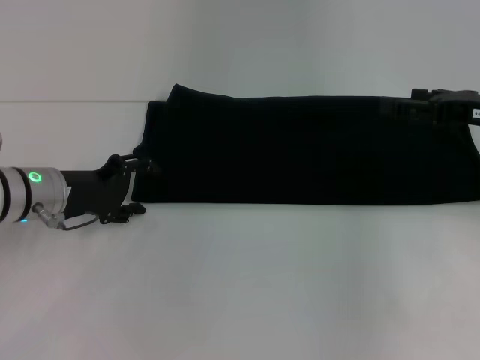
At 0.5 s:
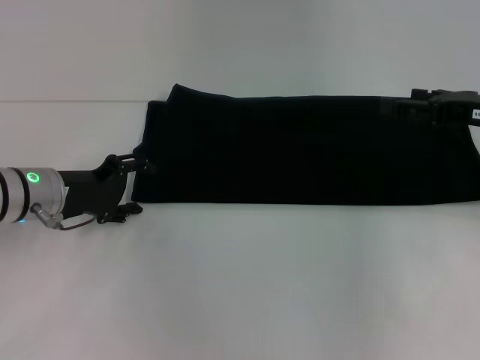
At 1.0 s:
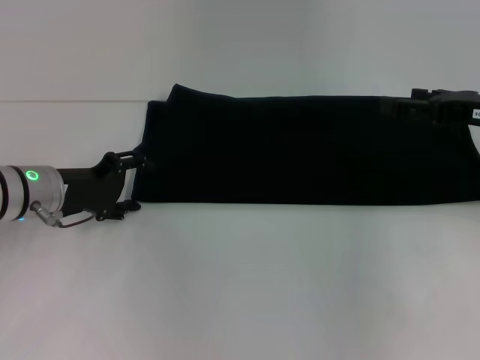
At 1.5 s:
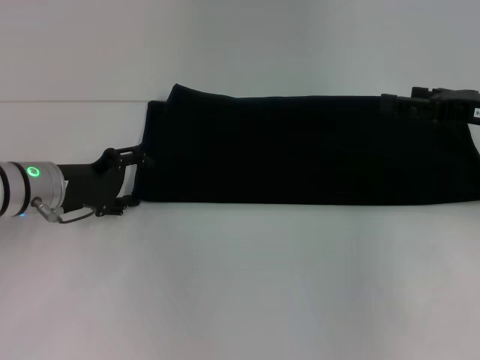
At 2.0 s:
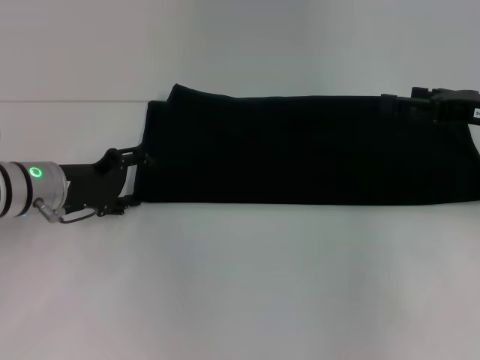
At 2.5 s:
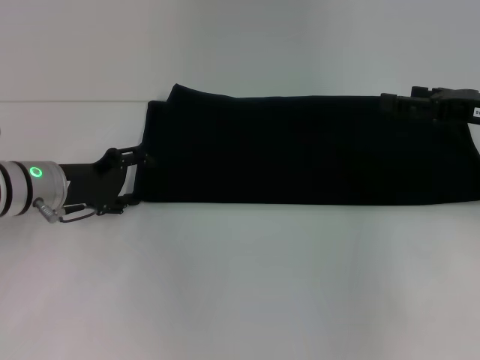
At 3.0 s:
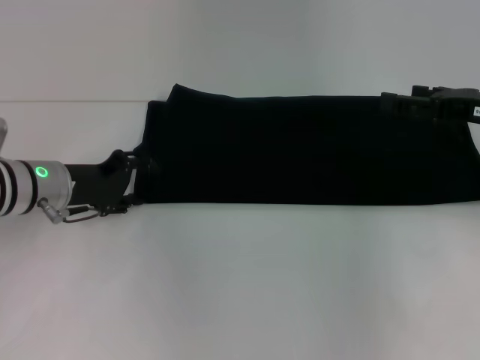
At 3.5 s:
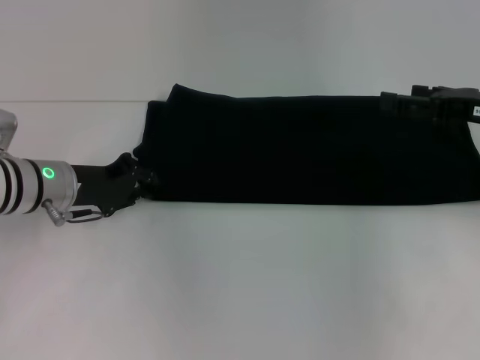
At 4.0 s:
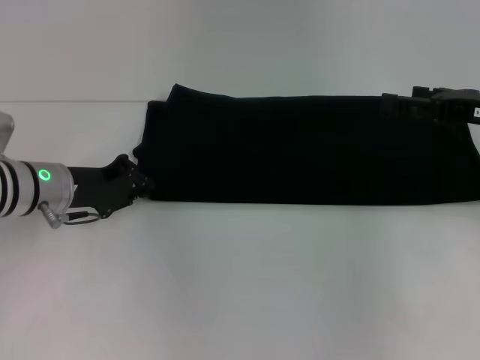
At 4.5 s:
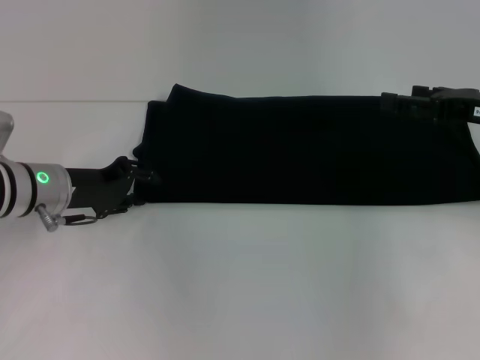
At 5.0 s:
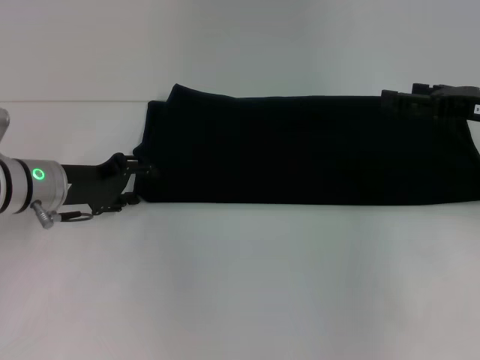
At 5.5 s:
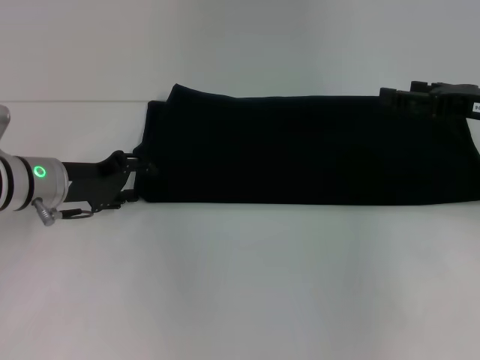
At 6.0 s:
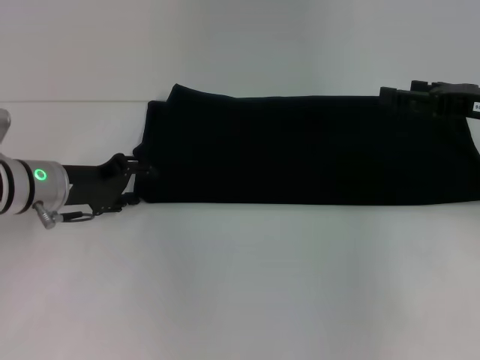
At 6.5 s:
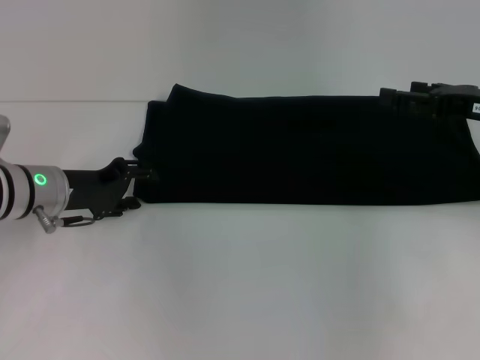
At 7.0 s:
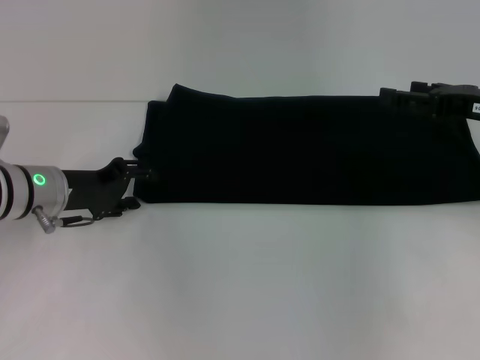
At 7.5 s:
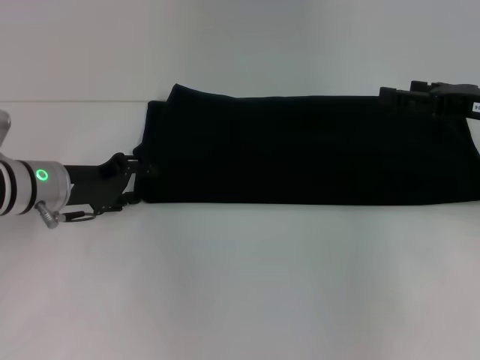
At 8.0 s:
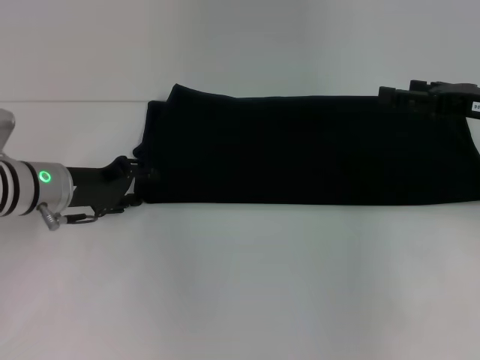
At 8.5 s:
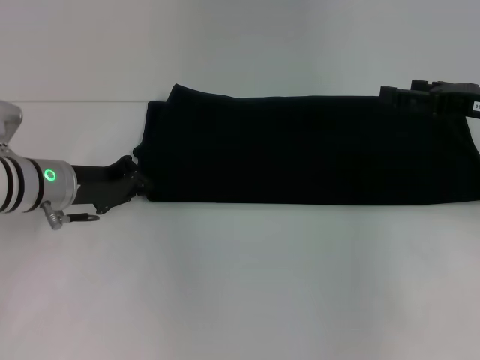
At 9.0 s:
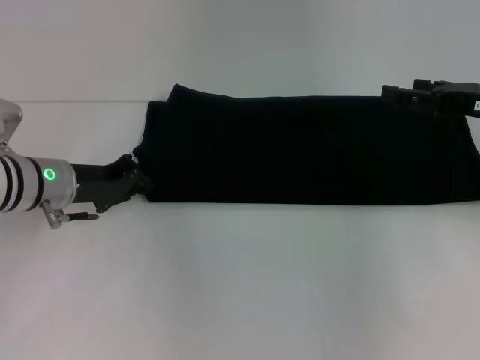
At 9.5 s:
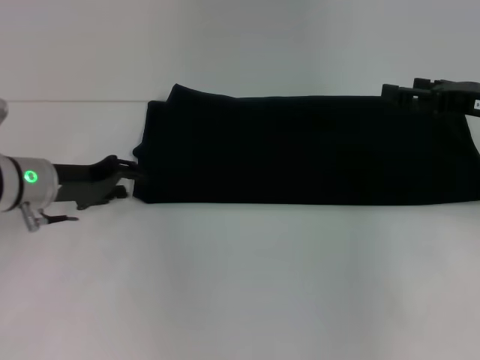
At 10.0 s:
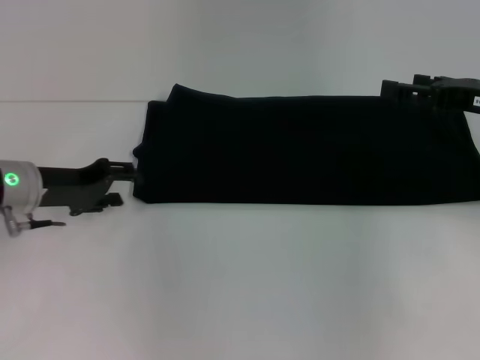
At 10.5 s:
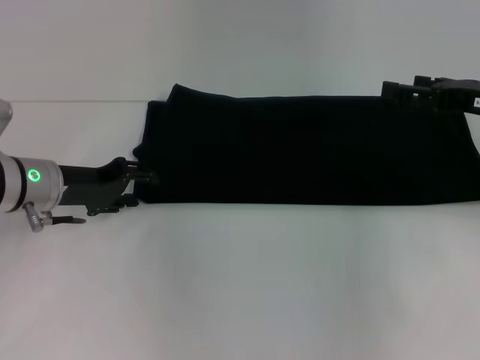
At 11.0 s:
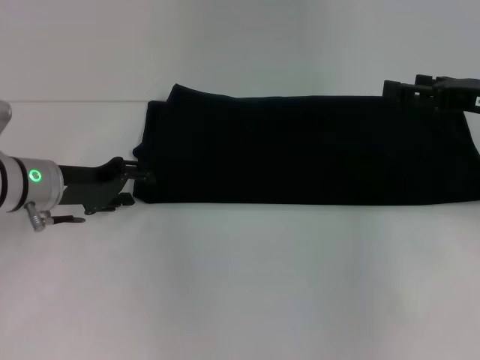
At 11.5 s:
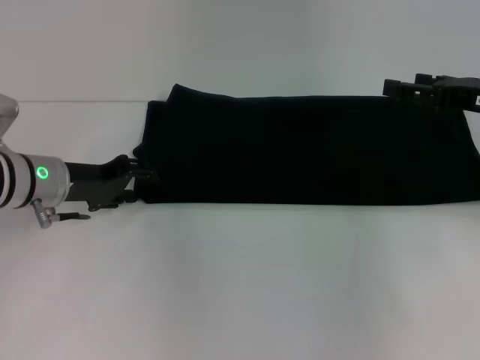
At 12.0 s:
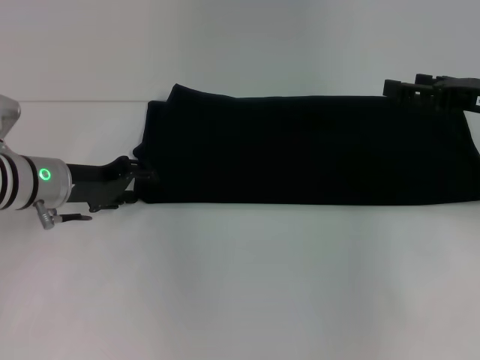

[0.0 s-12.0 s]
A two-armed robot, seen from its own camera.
0.0 to 2.0 s: Both grippers stay put.
2.0 to 4.0 s: The left gripper closes its fingers.
4.0 to 6.0 s: The left gripper opens up.
6.0 to 8.0 s: Both grippers stay about where they are.
8.0 to 10.0 s: The left gripper closes and opens again.
10.0 to 12.0 s: The grippers stay close to where they were, moving slightly.

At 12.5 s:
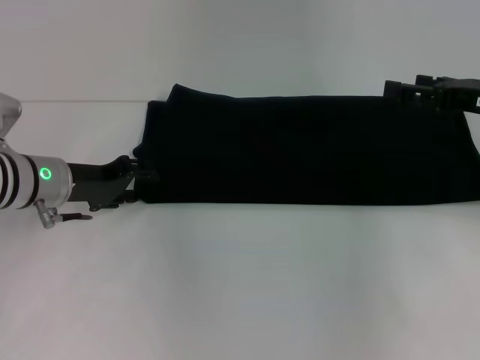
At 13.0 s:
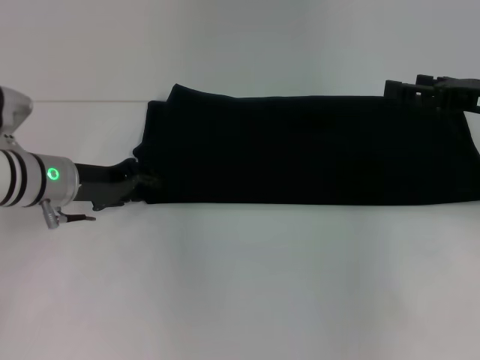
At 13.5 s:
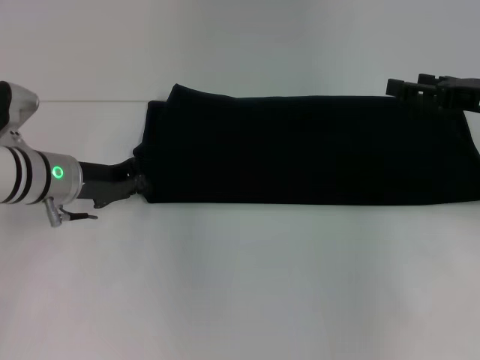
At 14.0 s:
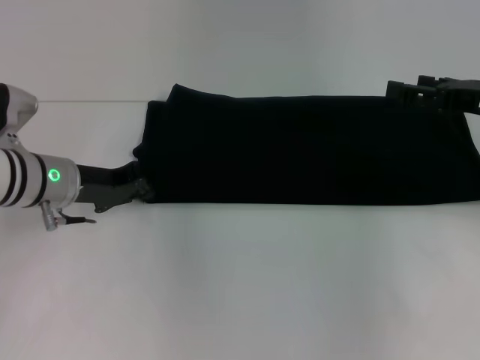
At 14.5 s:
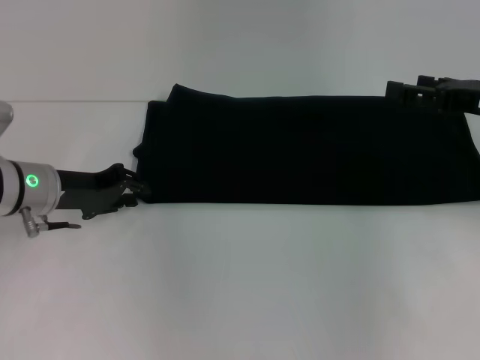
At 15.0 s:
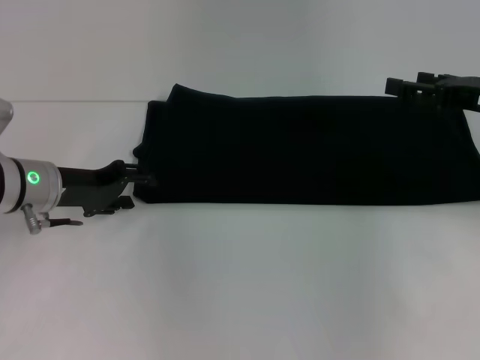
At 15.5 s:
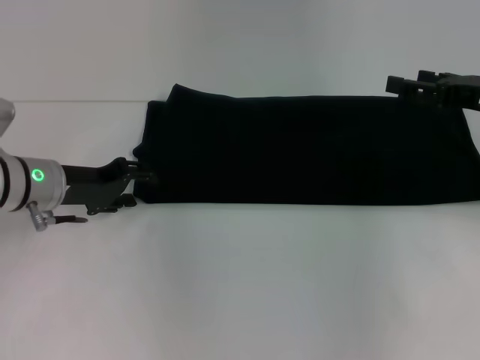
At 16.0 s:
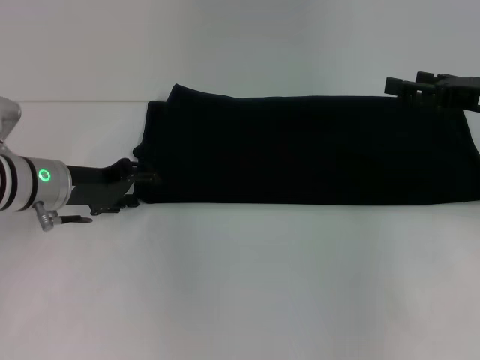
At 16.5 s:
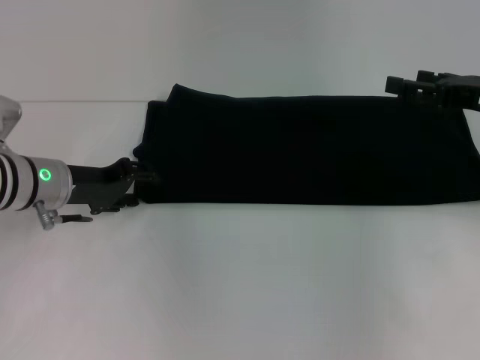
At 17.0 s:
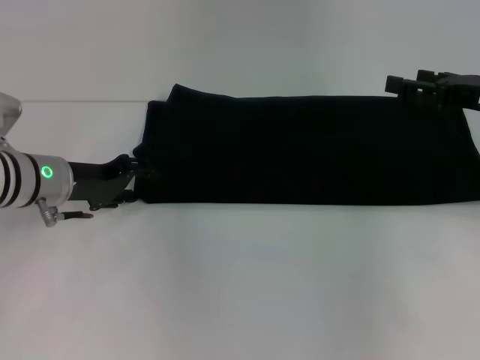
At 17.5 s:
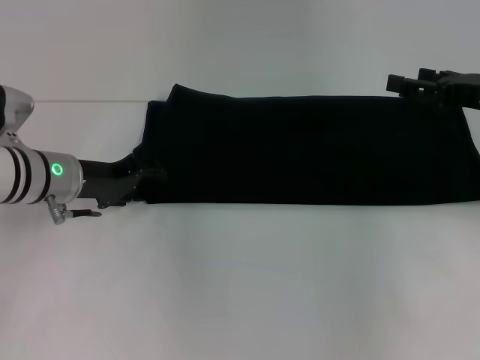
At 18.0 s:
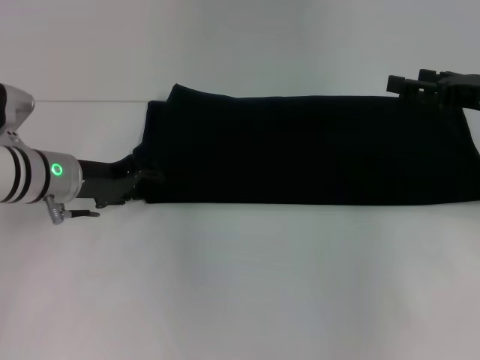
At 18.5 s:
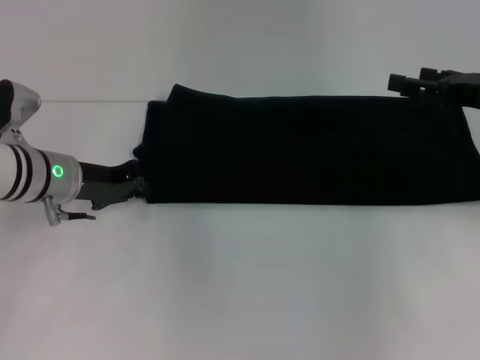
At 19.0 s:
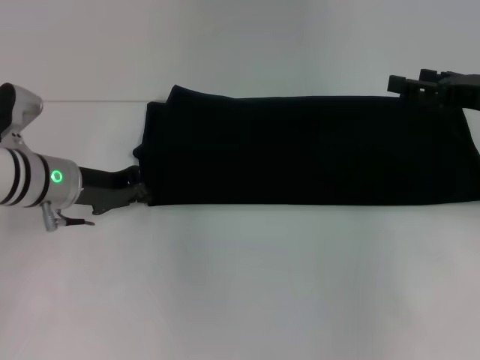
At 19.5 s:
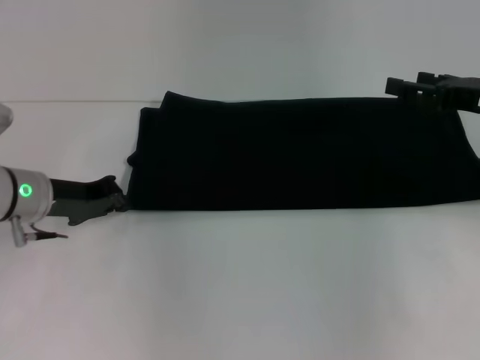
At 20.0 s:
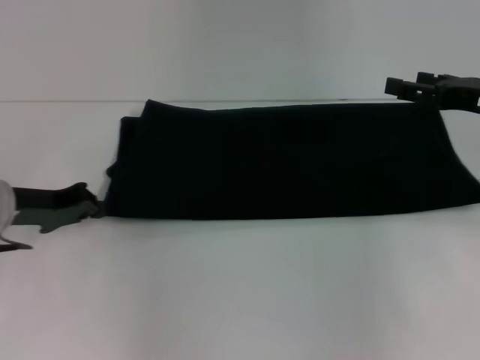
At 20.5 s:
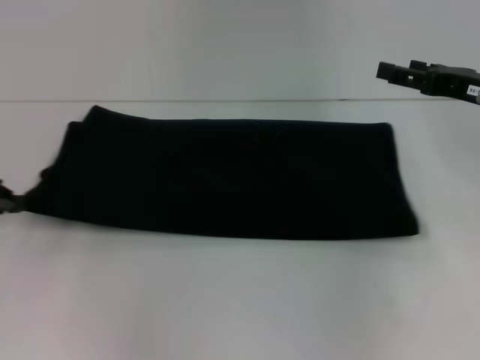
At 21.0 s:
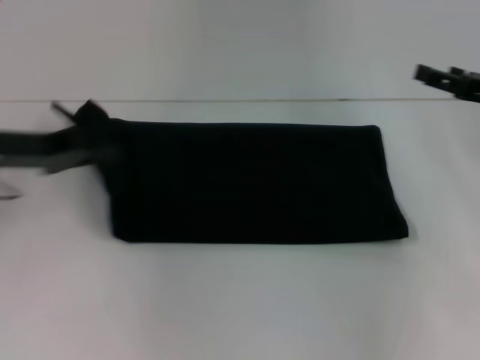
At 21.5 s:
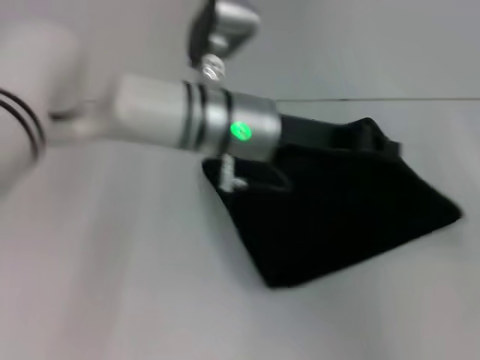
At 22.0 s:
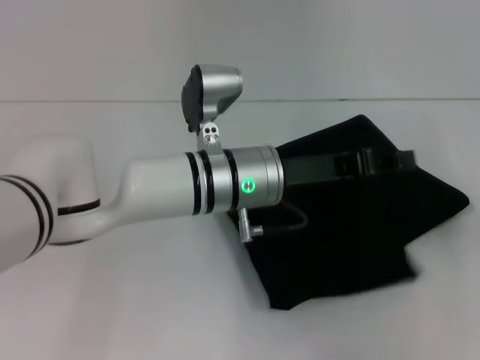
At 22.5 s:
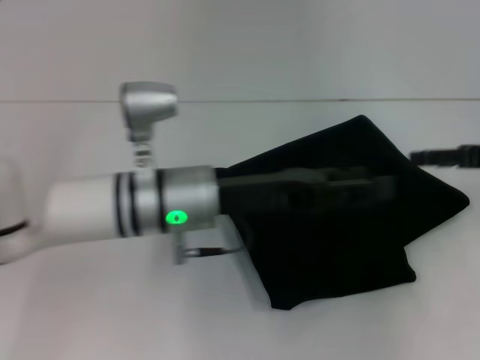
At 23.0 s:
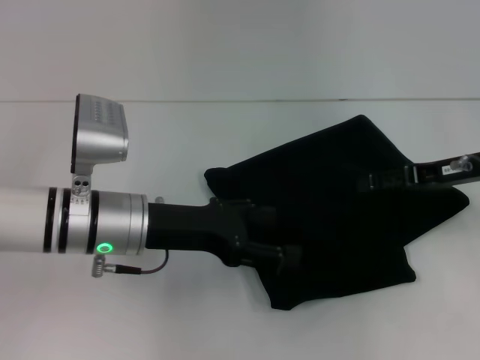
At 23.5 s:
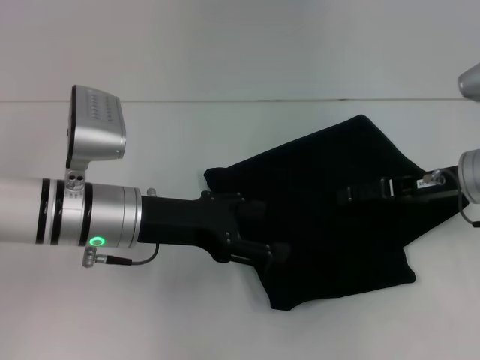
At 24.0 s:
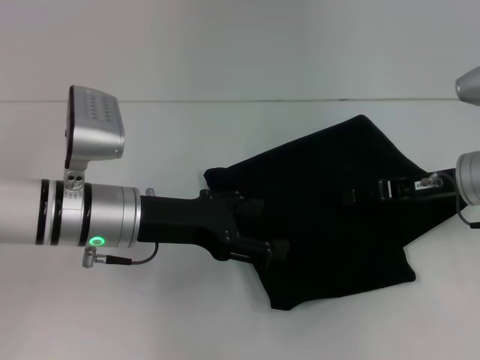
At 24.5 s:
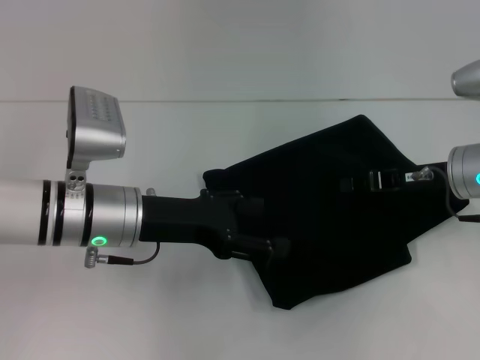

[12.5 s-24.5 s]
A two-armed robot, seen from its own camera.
Step, 12.5 to 22.0 s: Fold the clothes with your left hand.
12.5 to 14.5 s: The left gripper closes up.
14.5 to 16.5 s: The left gripper opens up.
16.5 to 18.5 s: The left gripper closes its fingers.
18.5 to 20.5 s: The left gripper is displaced to the left and backward by about 15 cm.
20.5 to 22.5 s: The left gripper travels to the right by roughly 30 cm, and opens, while the right gripper moves about 15 cm to the right and comes back.
22.5 to 24.5 s: Both grippers move to the left, roughly 10 cm. The right gripper closes its fingers. The left gripper opens.

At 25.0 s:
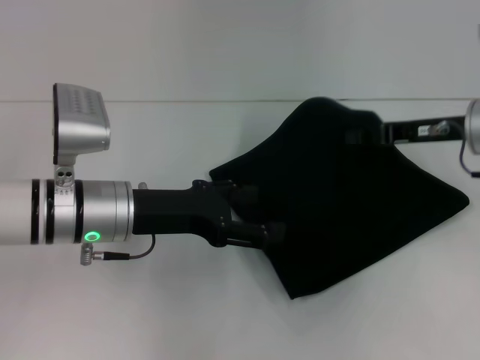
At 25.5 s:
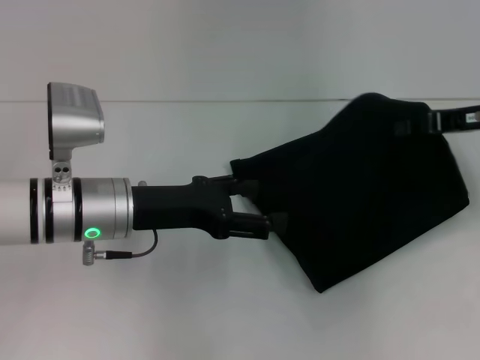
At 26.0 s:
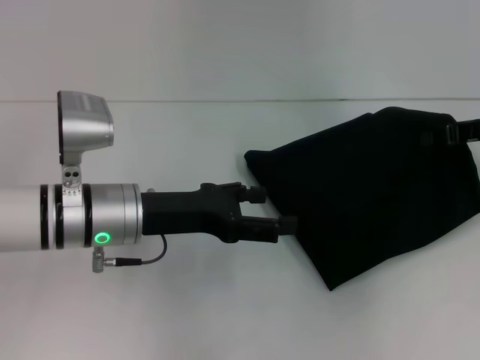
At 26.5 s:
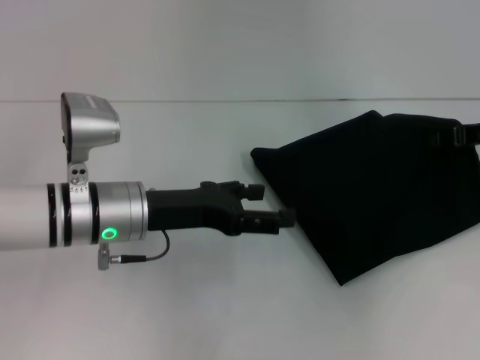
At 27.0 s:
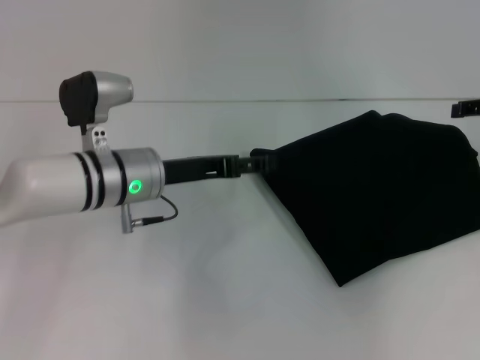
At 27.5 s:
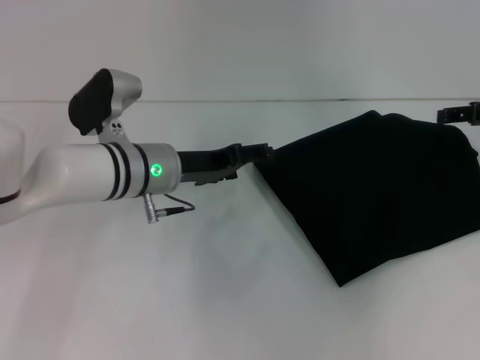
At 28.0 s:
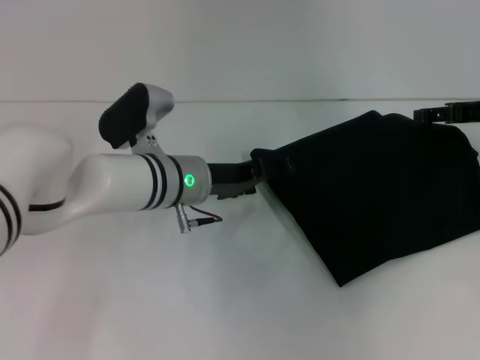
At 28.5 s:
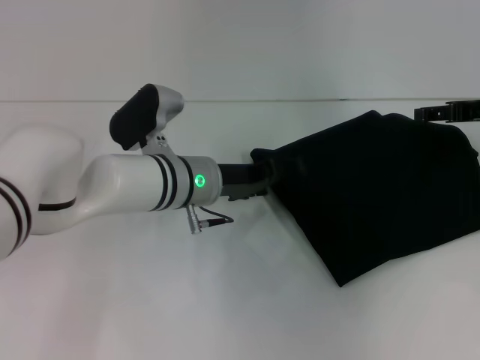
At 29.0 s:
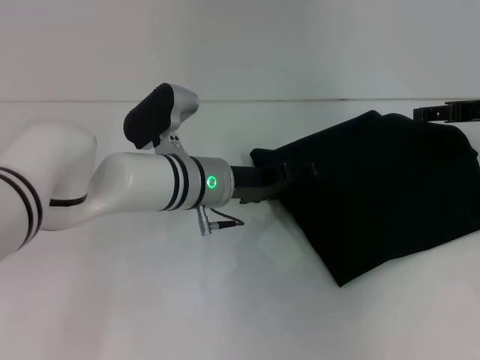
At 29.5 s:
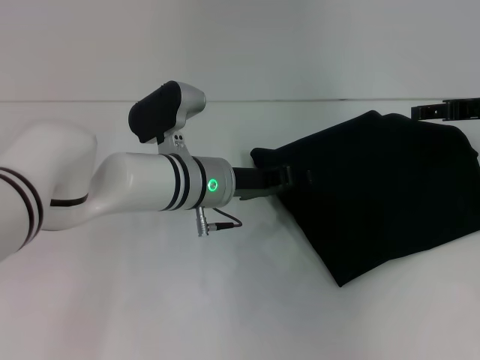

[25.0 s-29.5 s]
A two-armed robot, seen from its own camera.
25.0 to 27.0 s: The right gripper travels to the right by approximately 10 cm, and opens its fingers, while the left gripper changes place by about 5 cm.
27.0 to 29.5 s: The left gripper goes about 10 cm to the right.
